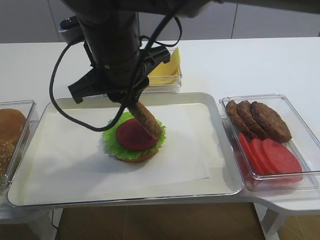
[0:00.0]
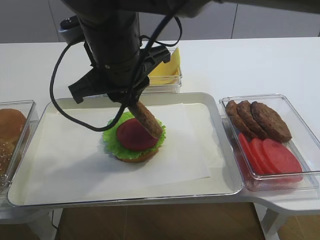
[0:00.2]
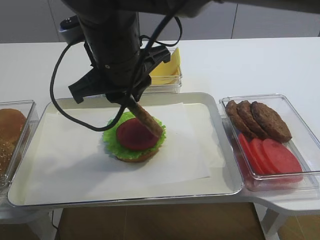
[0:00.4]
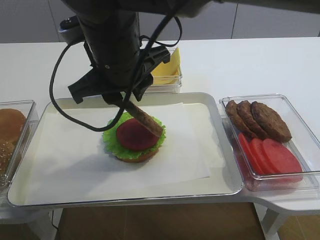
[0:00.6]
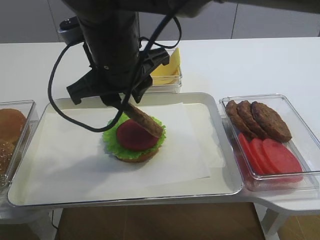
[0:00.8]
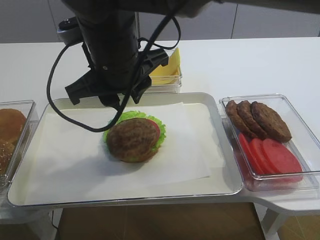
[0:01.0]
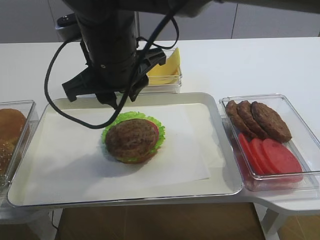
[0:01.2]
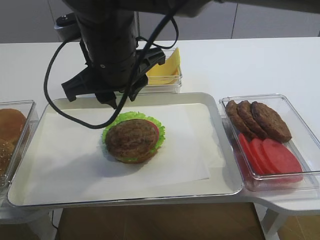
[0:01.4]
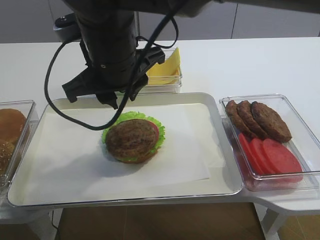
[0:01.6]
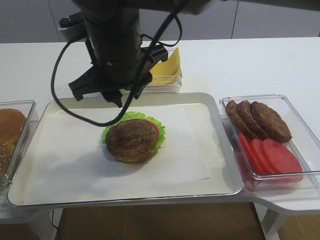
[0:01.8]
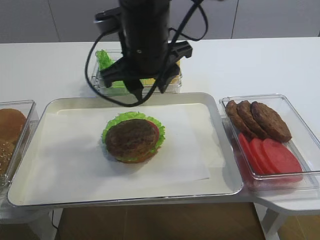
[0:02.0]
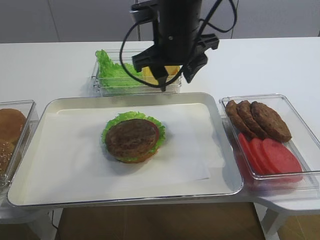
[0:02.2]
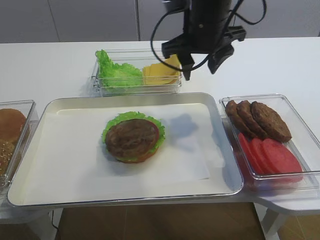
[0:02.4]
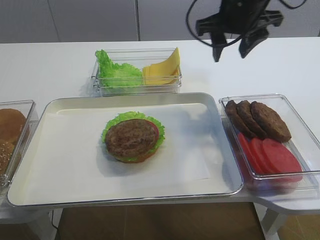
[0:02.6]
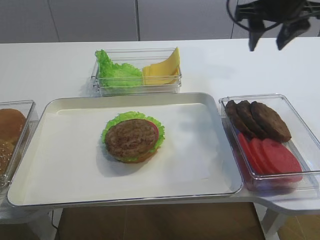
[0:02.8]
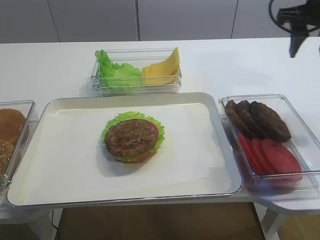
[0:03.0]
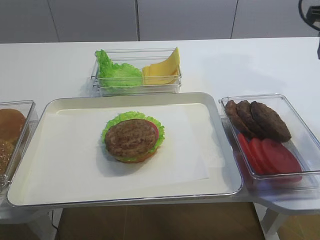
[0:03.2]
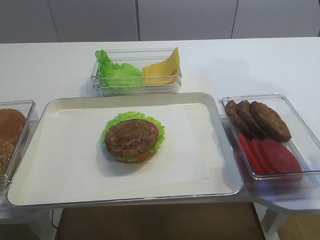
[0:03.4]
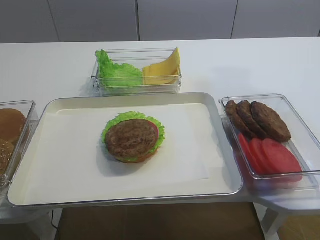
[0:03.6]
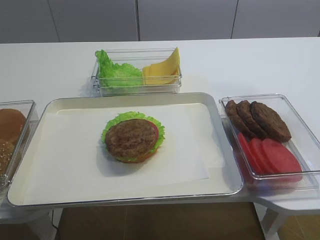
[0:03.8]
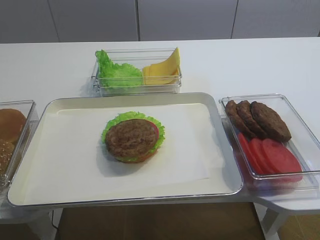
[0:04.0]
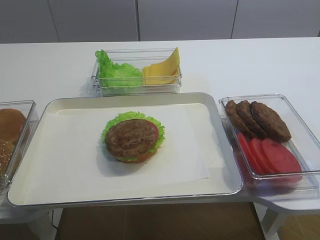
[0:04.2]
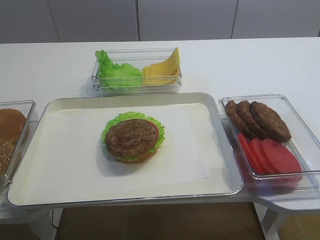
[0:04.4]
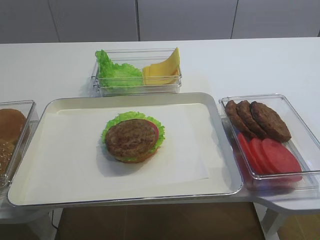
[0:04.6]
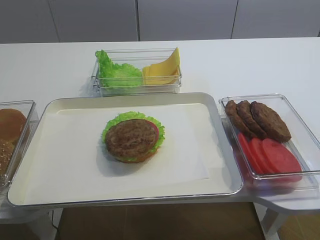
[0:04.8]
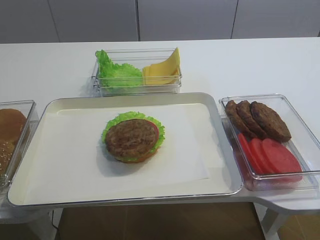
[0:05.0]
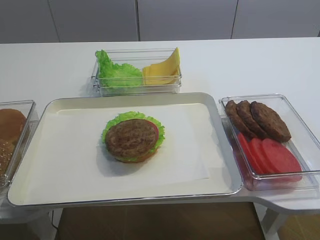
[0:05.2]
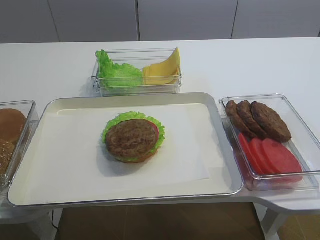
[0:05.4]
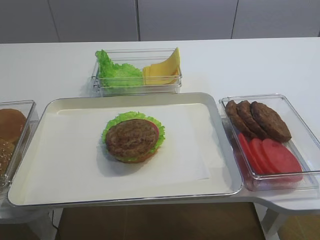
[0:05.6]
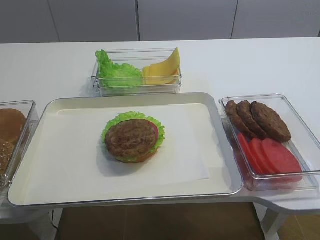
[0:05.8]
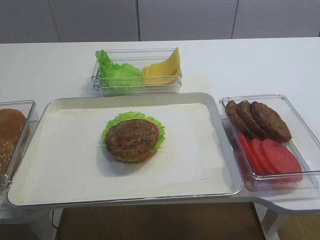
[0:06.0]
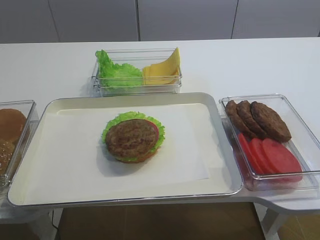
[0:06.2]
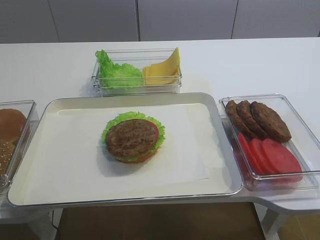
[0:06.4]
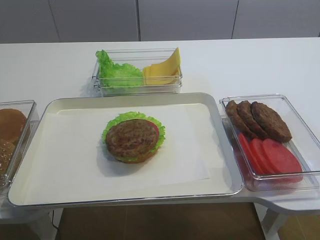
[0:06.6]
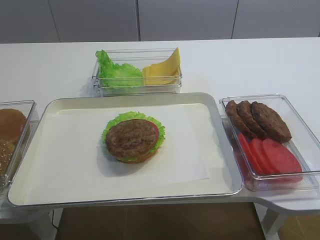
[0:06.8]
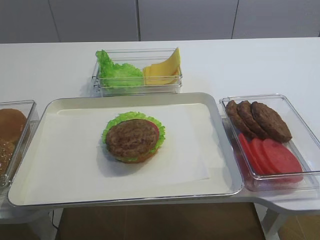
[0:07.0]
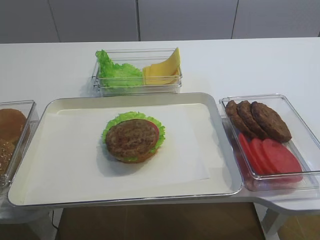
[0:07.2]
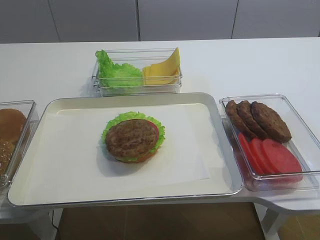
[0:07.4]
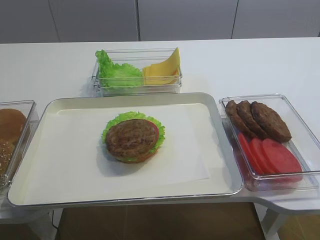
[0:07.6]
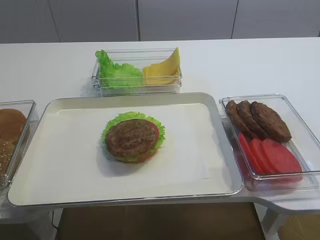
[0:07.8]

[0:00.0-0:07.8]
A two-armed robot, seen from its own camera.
0:00.0 to 0:01.6: The right gripper opens its fingers.
0:01.6 to 0:03.2: The right gripper moves to the right, about 35 cm, and opens up.
0:03.2 to 0:04.6: The right gripper goes approximately 35 cm backward.
0:06.2 to 0:07.8: Neither gripper changes place.

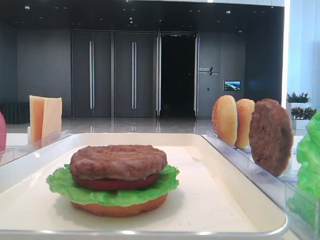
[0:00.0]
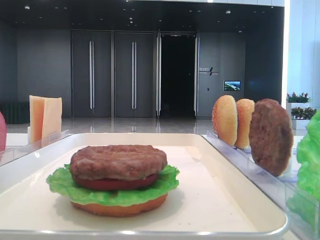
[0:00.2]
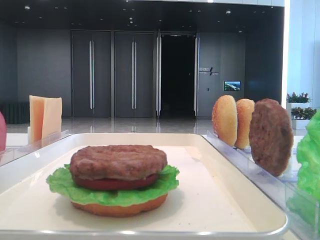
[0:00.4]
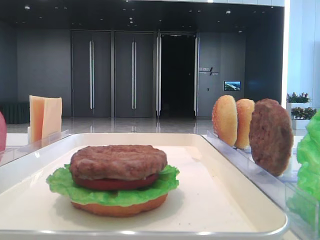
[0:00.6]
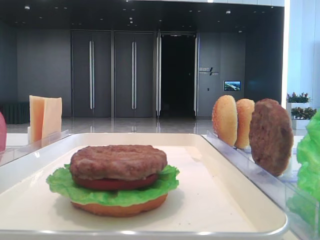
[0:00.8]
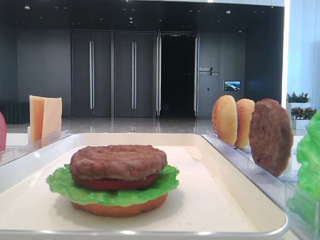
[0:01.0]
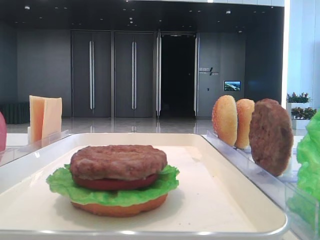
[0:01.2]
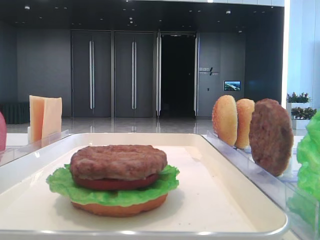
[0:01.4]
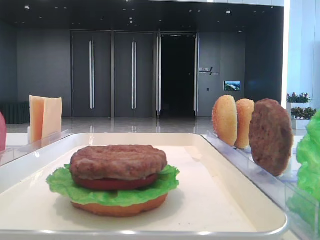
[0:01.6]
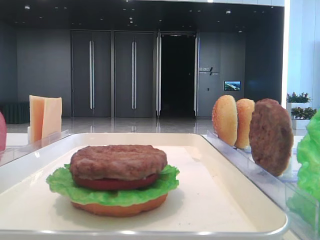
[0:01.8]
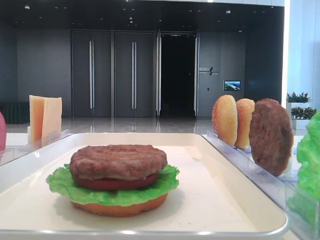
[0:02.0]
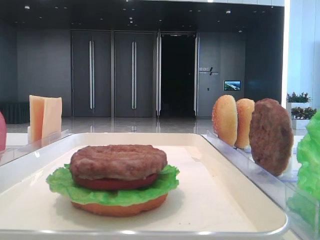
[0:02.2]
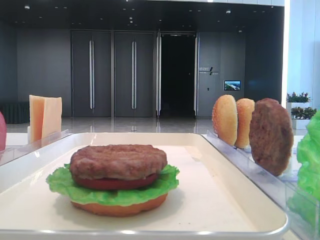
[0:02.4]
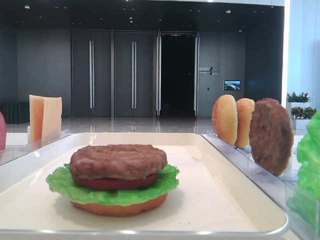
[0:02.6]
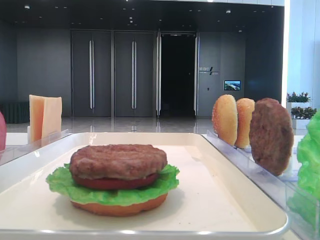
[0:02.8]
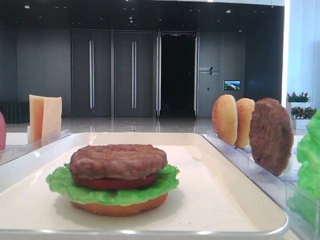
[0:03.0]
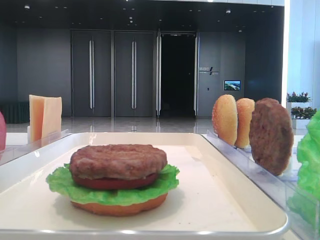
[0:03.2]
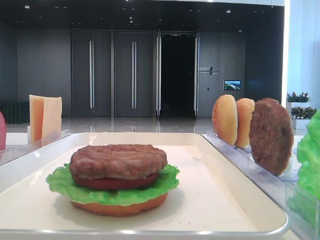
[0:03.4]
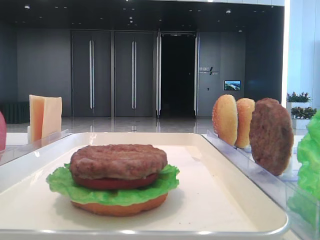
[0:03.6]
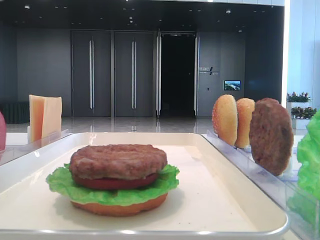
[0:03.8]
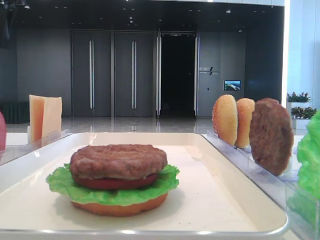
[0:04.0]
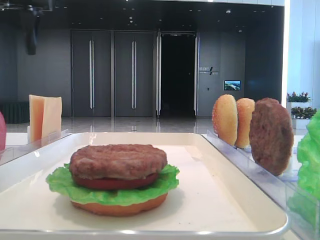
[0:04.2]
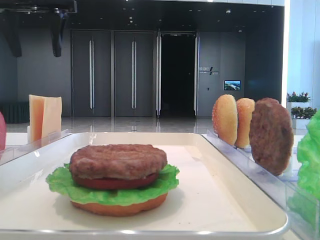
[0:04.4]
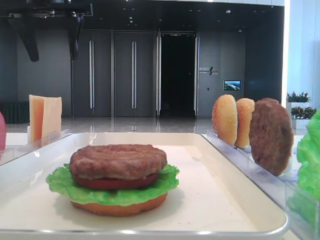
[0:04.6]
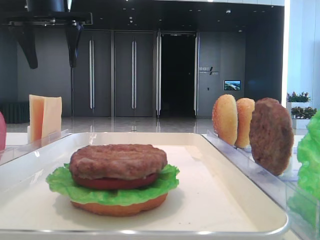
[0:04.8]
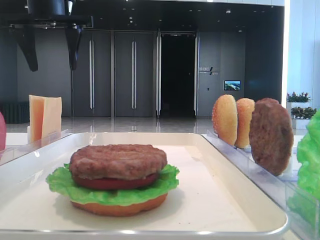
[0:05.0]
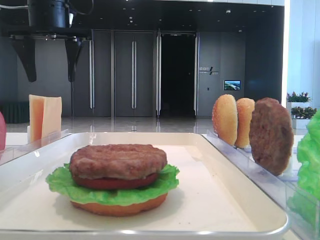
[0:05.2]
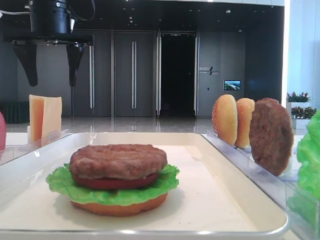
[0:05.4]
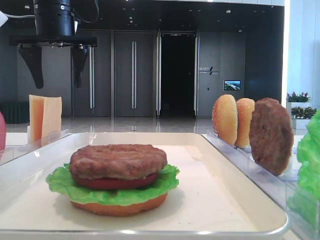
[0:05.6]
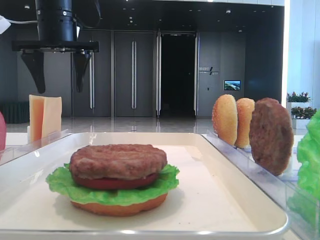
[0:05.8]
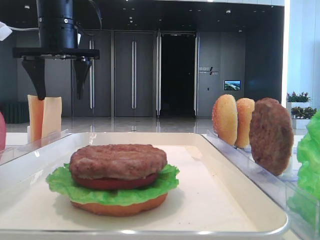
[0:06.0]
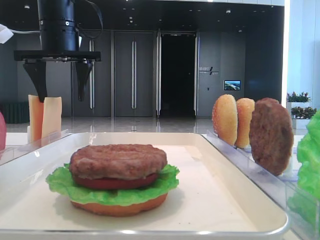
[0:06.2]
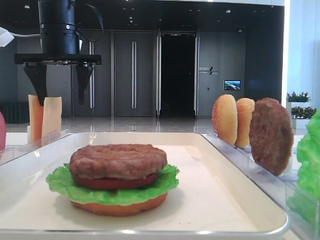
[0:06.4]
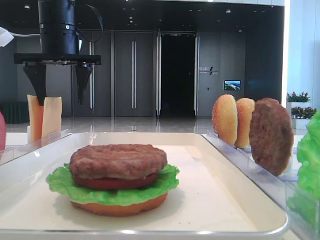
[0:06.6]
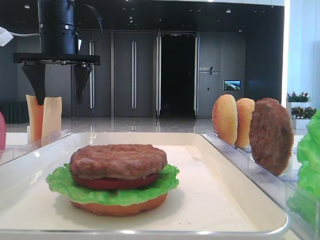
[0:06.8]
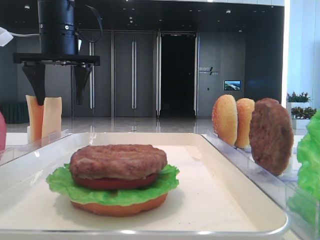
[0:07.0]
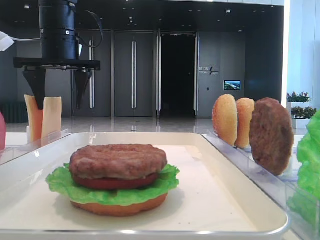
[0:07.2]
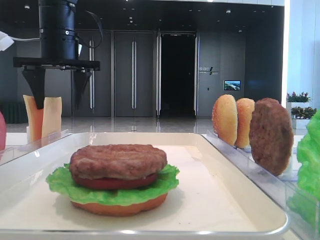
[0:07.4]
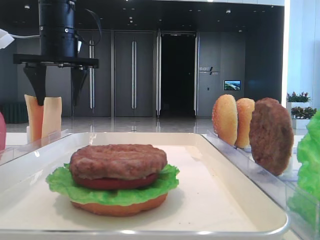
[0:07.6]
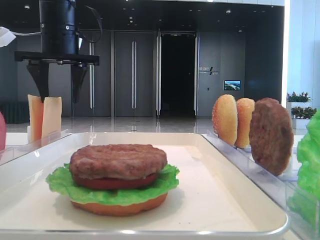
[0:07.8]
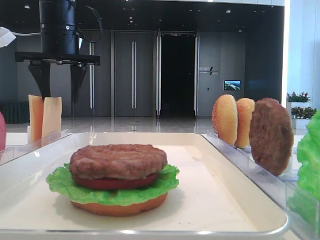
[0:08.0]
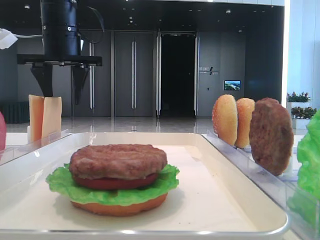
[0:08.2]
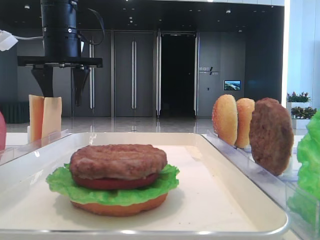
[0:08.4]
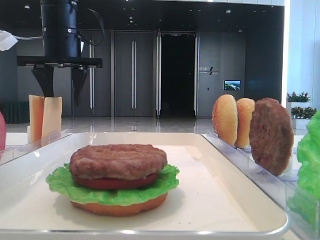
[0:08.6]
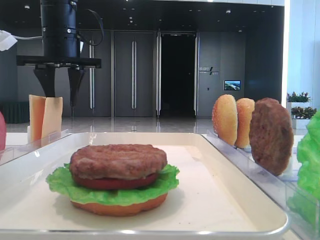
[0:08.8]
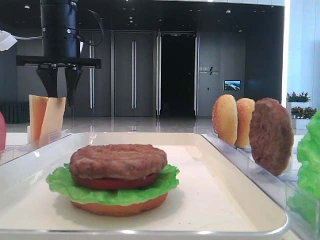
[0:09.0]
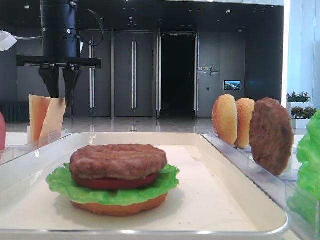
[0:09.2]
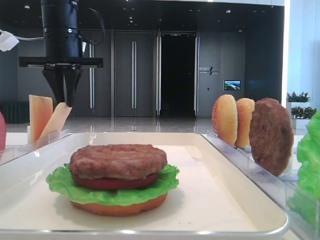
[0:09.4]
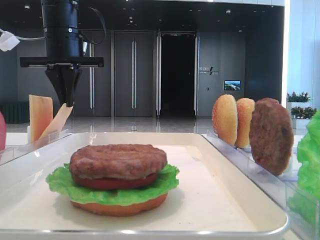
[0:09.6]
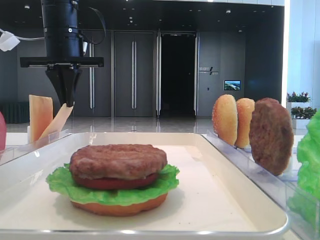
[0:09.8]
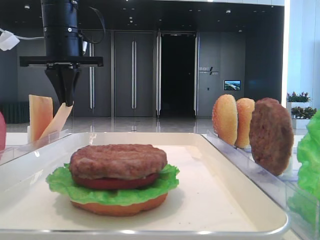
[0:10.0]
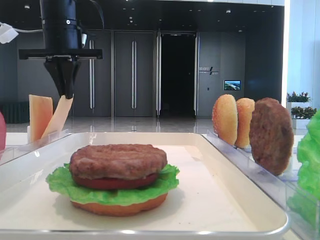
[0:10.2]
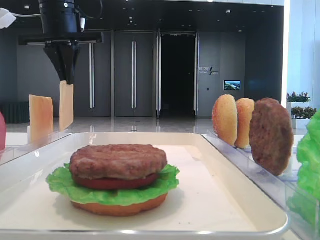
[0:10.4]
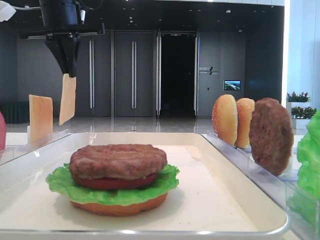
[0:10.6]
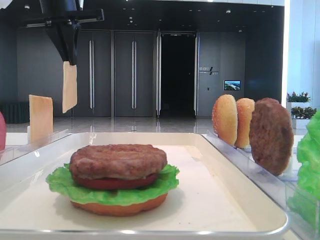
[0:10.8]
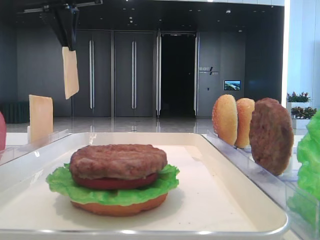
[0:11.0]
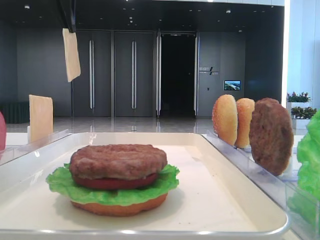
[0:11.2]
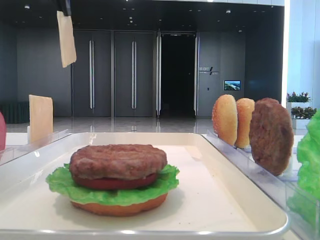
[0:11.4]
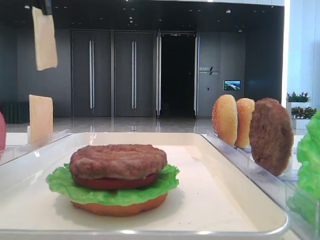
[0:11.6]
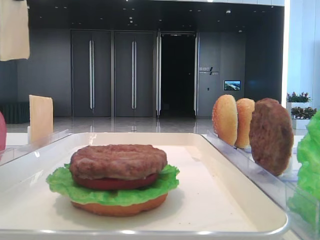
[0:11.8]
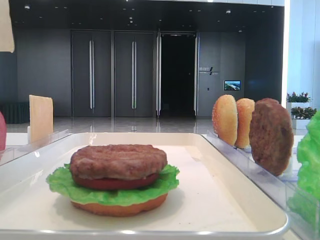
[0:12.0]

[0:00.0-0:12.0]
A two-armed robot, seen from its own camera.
Step, 0:00.0 to 0:09.6: Pick up the cheese slice with the left hand.
0:01.6 to 0:03.0: The left gripper goes about 35 cm forward.
0:03.0 to 0:04.4: The left gripper moves to the right, approximately 15 cm.
0:04.4 to 0:06.0: The left gripper heads downward, covering some 5 cm.
0:06.0 to 0:07.6: The grippers stay close to where they were, moving slightly.
0:07.6 to 0:09.0: The left gripper closes.
0:09.0 to 0:10.4: The left gripper closes.
0:10.4 to 0:12.0: The left gripper travels backward and upward by some 20 cm.

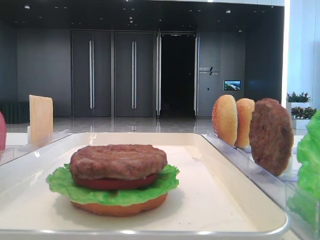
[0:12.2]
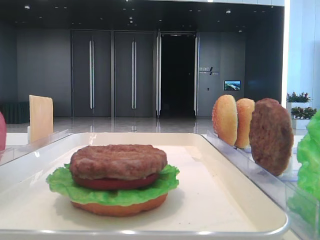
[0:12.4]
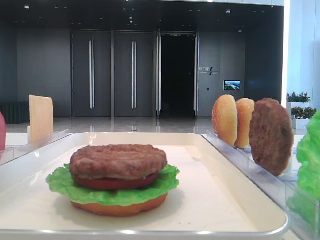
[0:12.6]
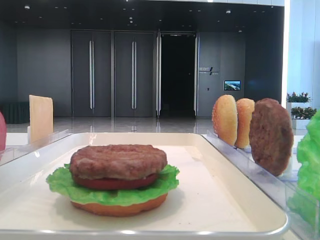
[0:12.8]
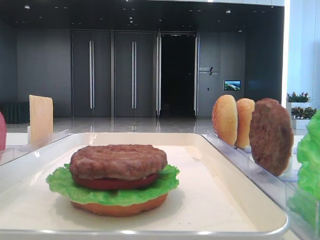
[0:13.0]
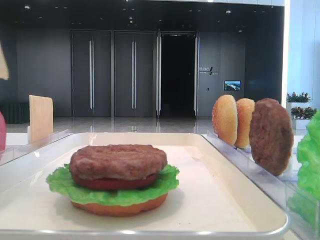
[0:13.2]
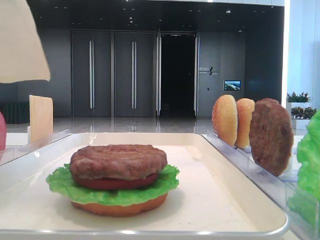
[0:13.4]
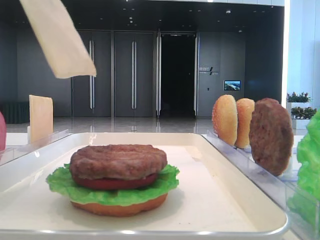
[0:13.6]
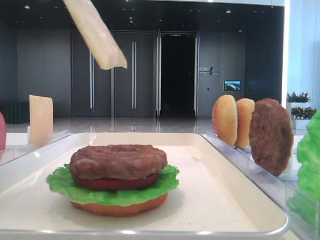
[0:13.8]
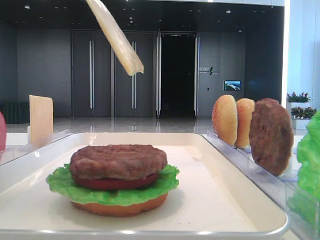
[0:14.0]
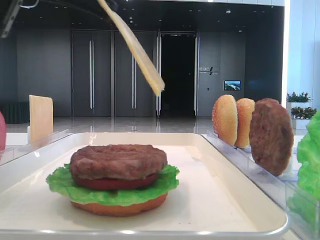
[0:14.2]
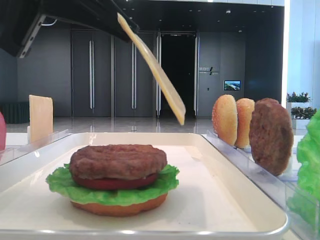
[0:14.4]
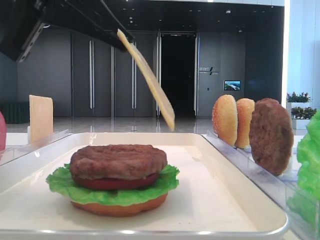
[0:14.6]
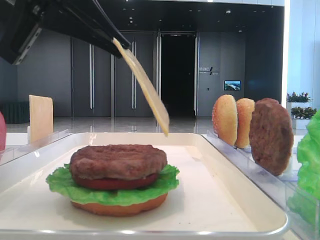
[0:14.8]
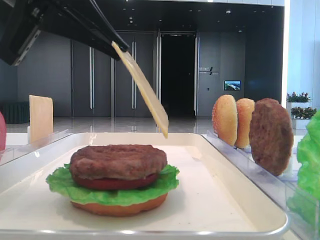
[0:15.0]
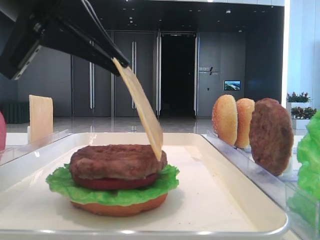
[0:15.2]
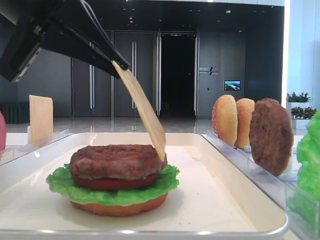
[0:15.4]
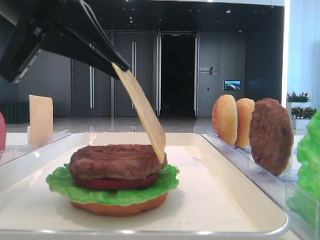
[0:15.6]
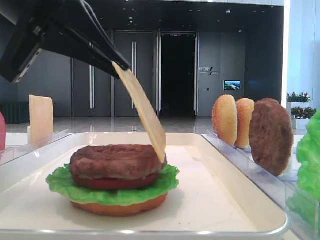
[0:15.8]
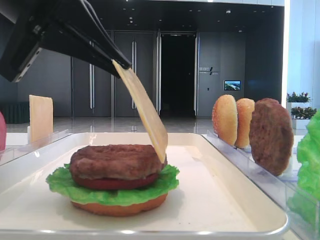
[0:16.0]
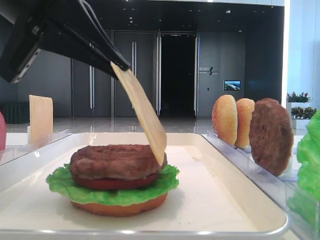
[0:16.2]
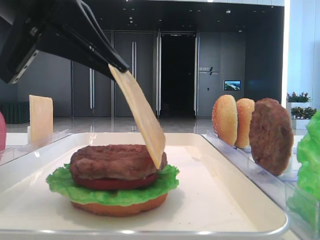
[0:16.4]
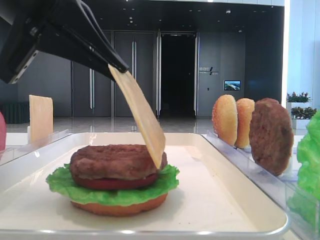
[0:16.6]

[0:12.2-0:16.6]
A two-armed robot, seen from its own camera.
0:12.2 to 0:13.6: The left gripper travels downward by approximately 5 cm.
0:13.6 to 0:15.2: The left gripper travels downward and to the right by some 10 cm.
0:15.2 to 0:16.6: The two grippers keep their place.
